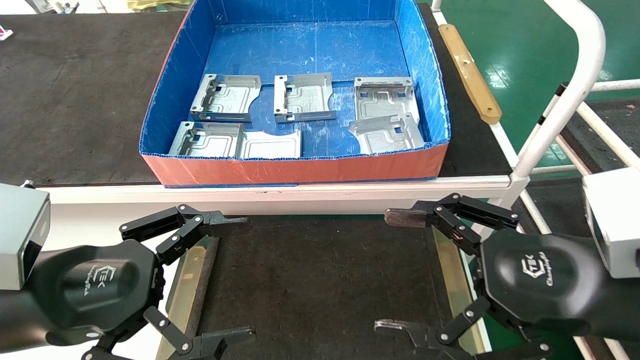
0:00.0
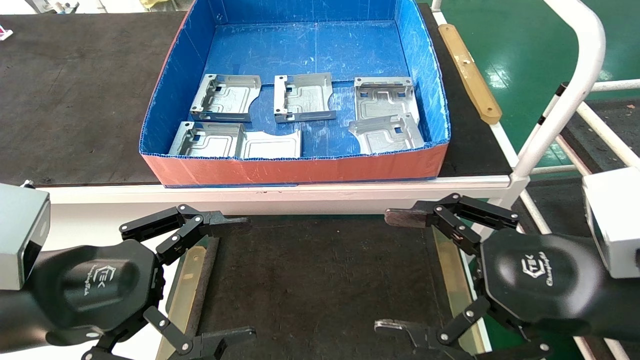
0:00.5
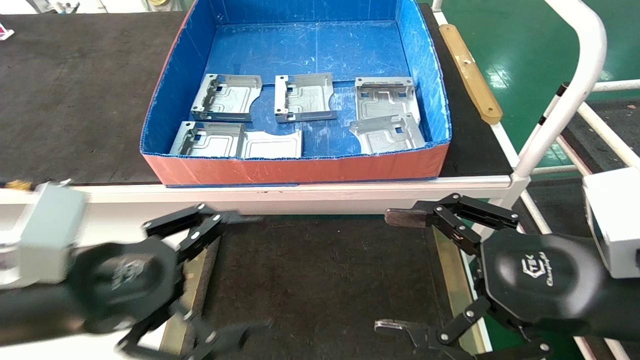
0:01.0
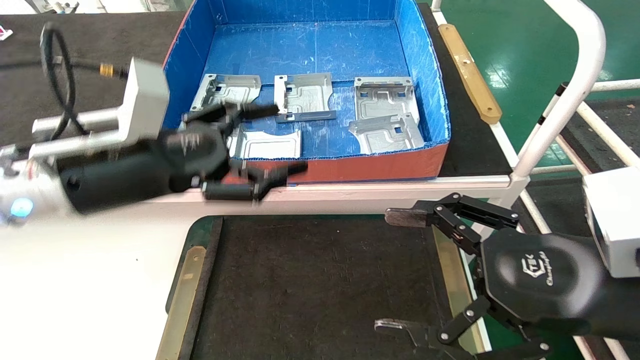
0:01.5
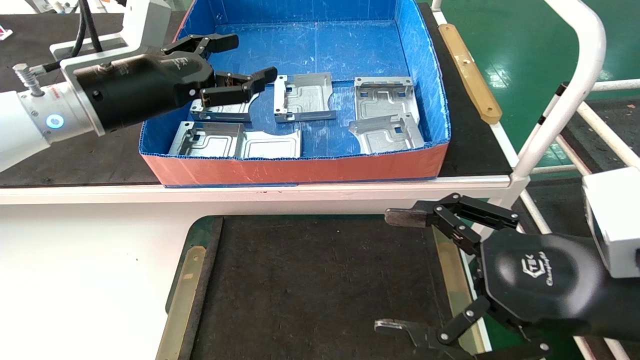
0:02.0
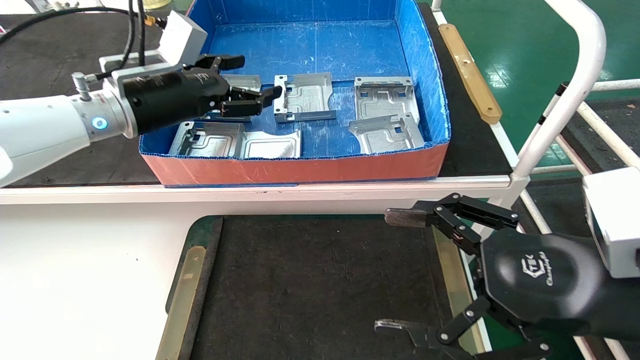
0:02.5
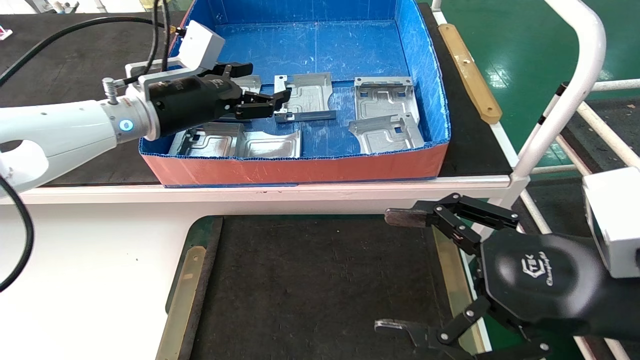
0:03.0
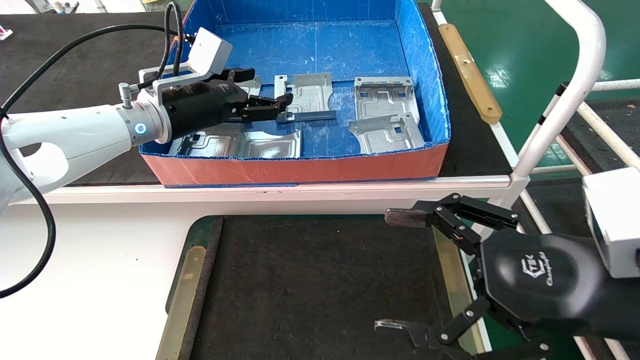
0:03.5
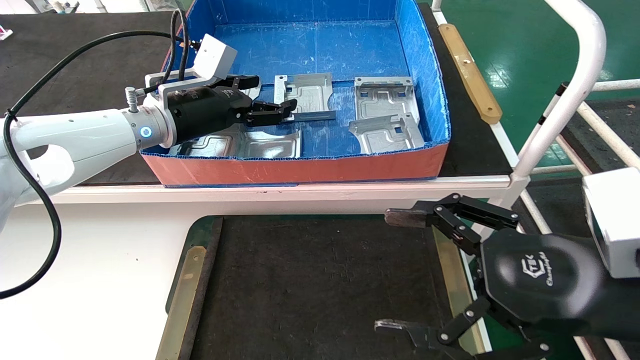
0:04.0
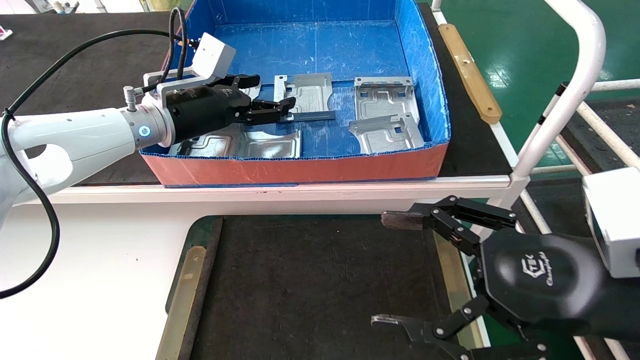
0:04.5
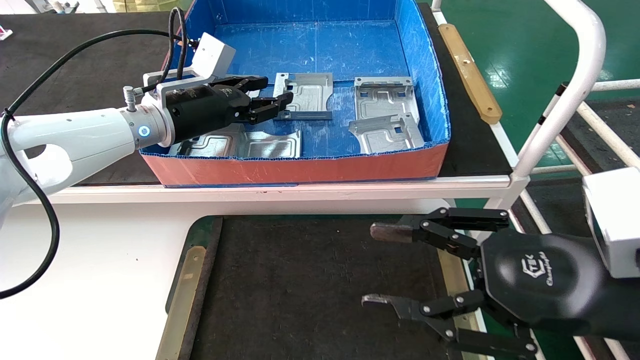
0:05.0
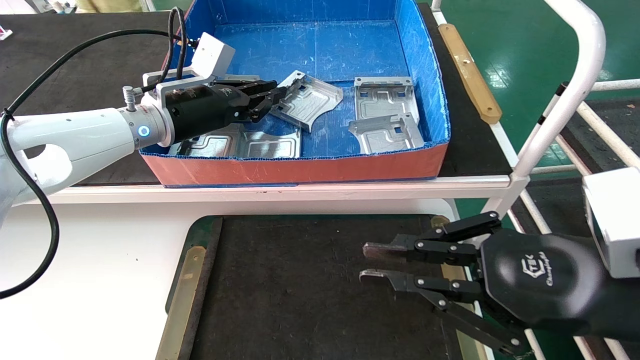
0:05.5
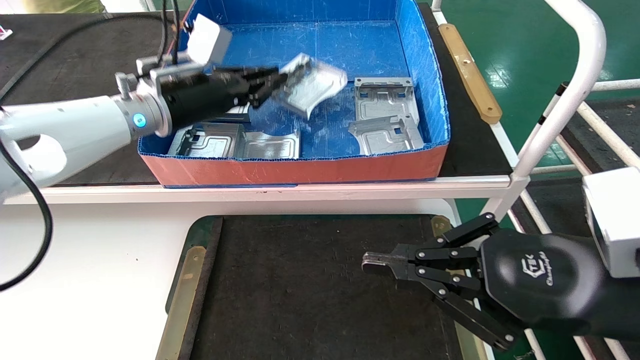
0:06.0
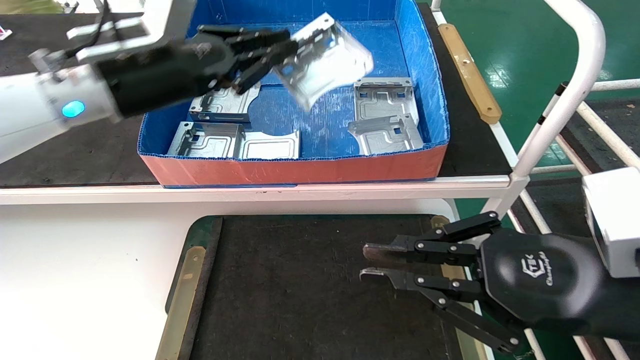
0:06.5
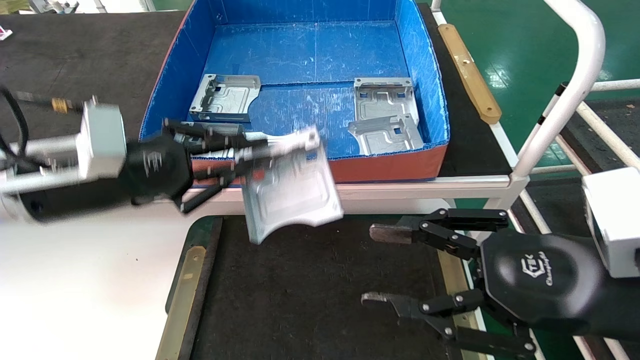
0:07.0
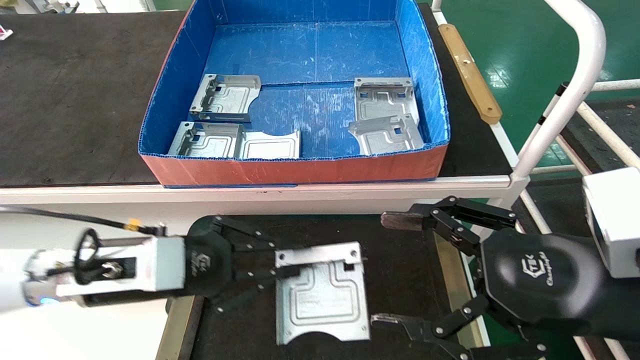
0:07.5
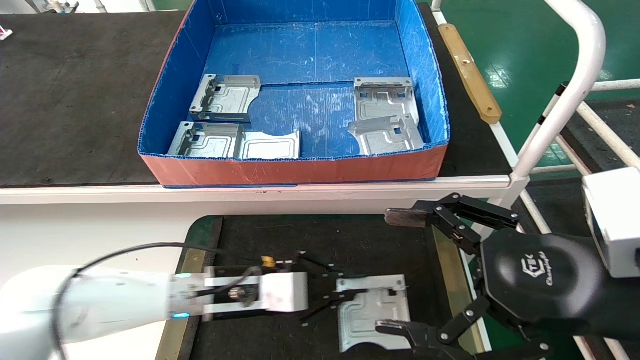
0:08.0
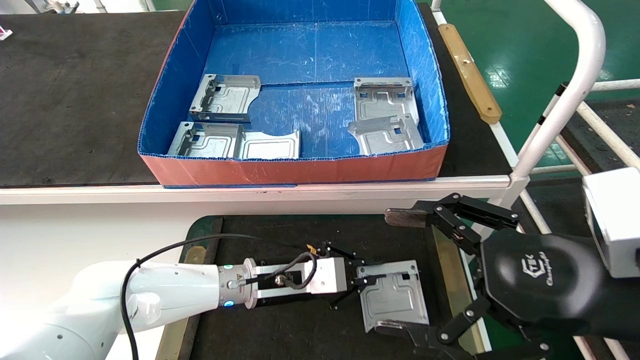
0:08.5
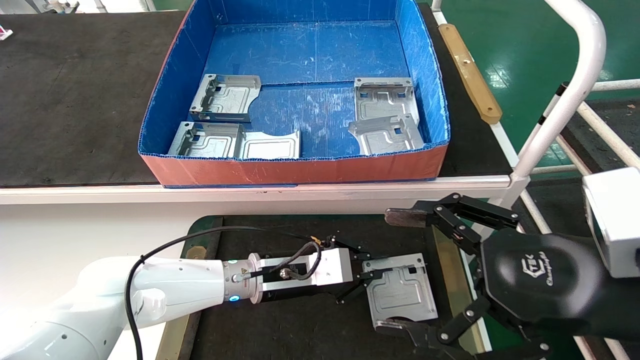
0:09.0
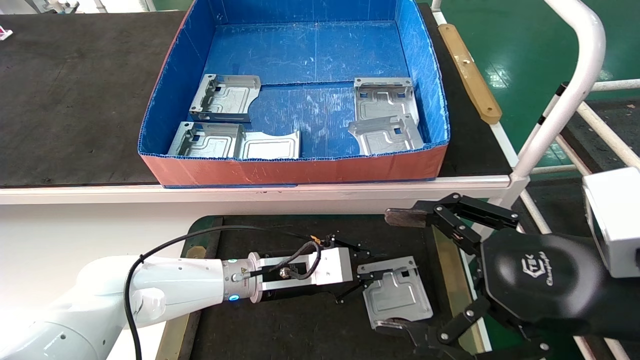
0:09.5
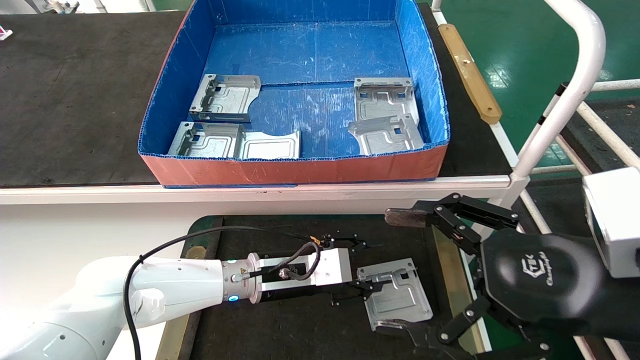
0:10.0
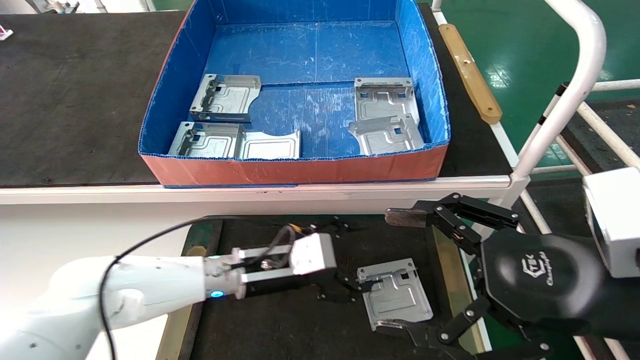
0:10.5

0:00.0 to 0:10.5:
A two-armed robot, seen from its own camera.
Task of the whole recording: take the accessories out of the box and place them on the table.
Step, 0:01.5 to 0:05.5: Pick up the hard drive bracket from the feeding area.
Step, 0:06.0 to 0:09.5: Place the hard drive bracket into the box.
0:00.0 to 0:02.0: The left gripper shifts about 20 cm forward and upward.
0:02.0 to 0:04.0: The left gripper moves forward, roughly 10 cm.
0:04.0 to 0:06.5: The left gripper travels backward by about 10 cm, and closes its fingers. The right gripper closes its fingers.
0:06.5 to 0:08.5: The left gripper moves downward and to the right, approximately 30 cm. The right gripper opens.
0:08.5 to 0:10.5: The left gripper opens its fingers.
